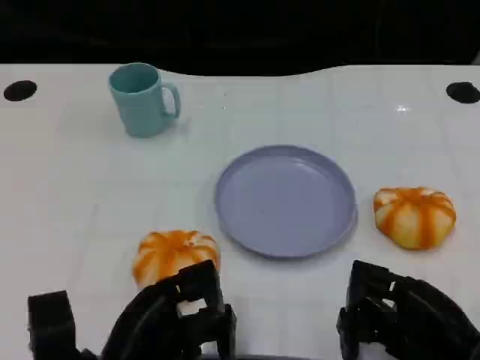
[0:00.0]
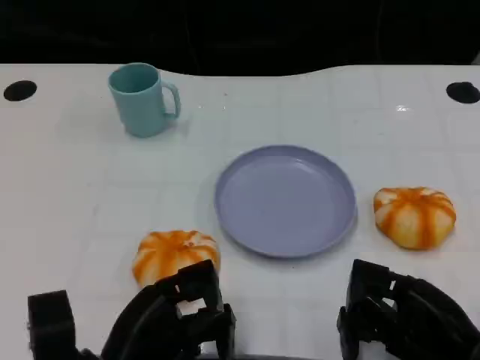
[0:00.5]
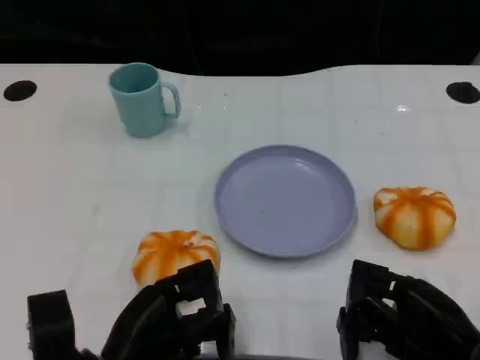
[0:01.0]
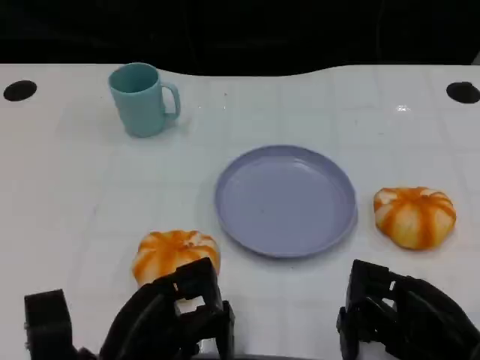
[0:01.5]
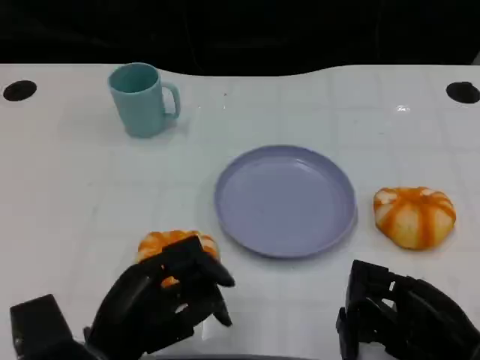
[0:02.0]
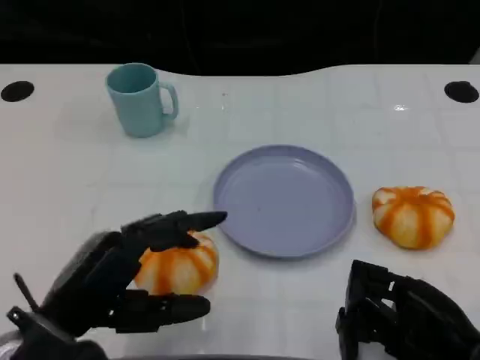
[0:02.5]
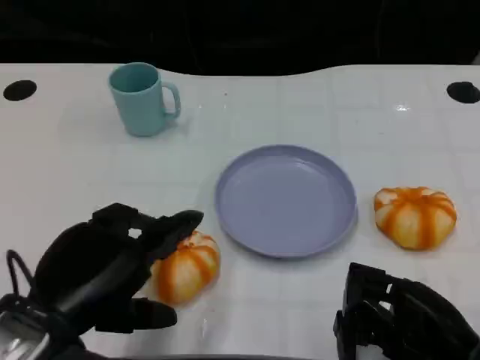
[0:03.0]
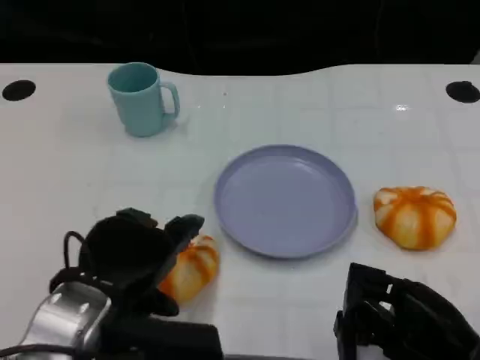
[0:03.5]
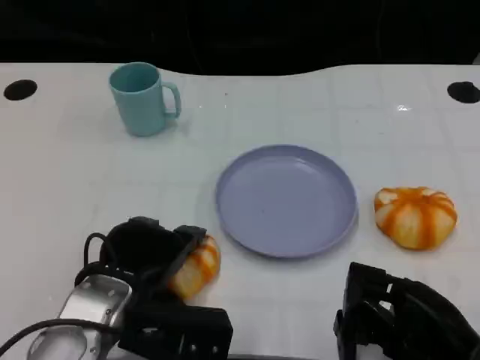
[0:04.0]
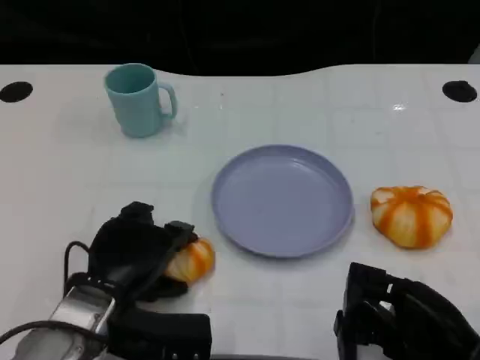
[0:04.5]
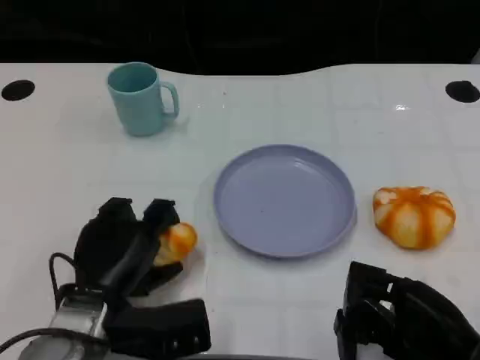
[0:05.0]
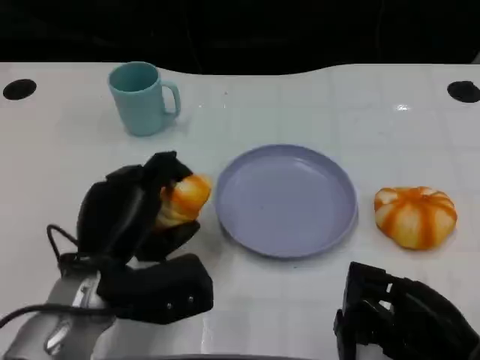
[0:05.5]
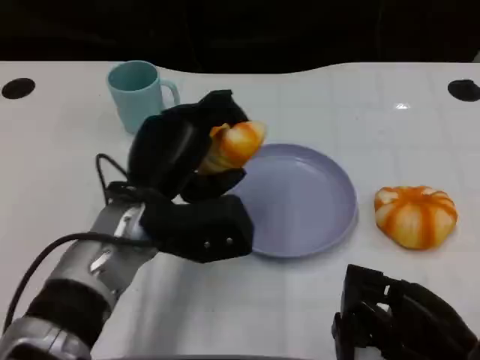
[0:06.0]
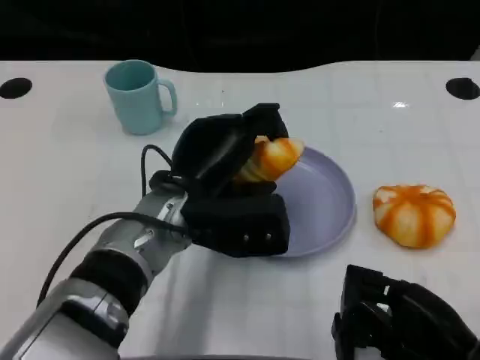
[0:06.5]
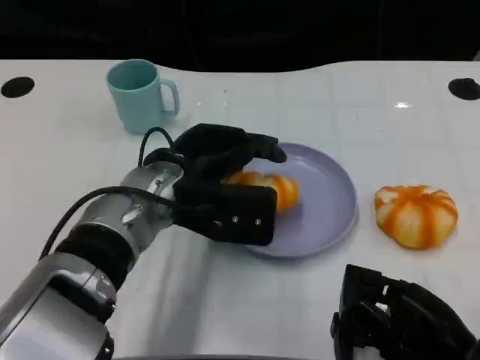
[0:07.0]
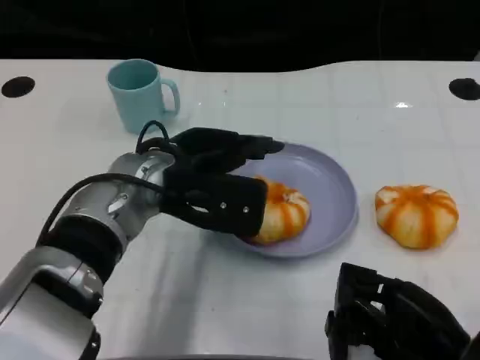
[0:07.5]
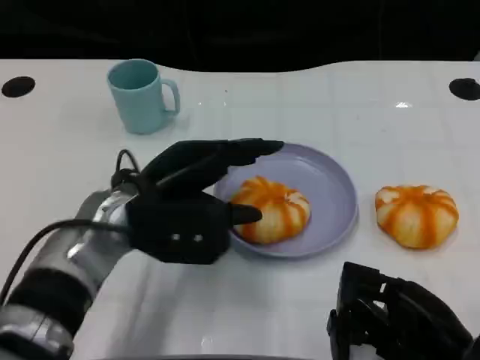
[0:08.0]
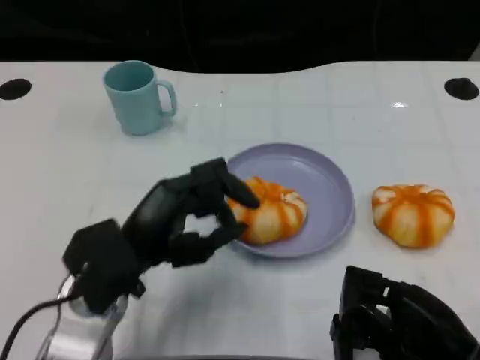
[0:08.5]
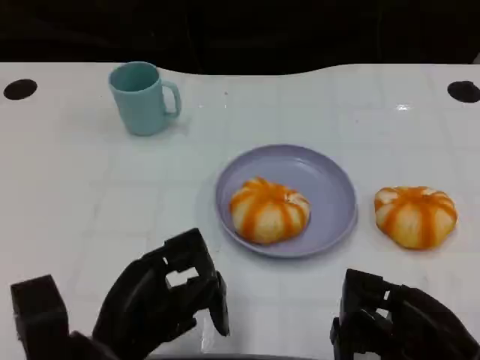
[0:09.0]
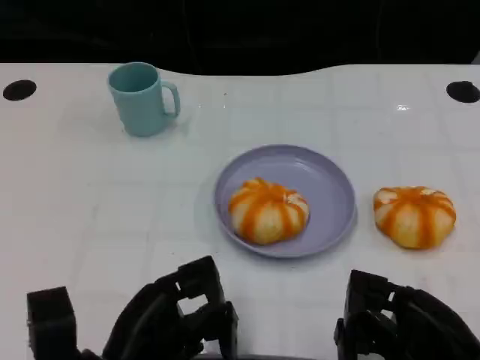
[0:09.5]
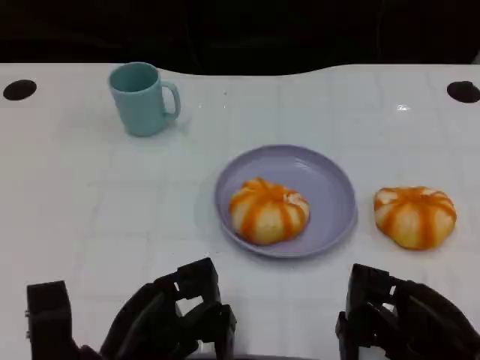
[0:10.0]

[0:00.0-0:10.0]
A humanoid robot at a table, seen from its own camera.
Task of the whole recording: Grasp the bread from the table and place it into the plate.
0:02.0 to 0:04.0: The left hand travels forward by approximately 5 cm.
0:04.0 to 0:06.0: The left hand shifts some 5 cm forward.
0:08.0 to 0:10.0: The left hand is displaced backward and downward by some 15 cm.

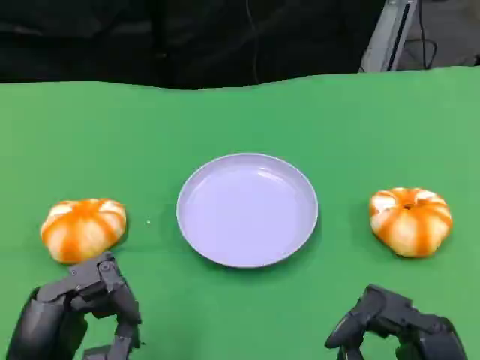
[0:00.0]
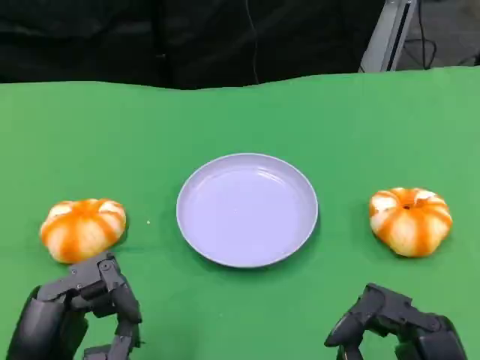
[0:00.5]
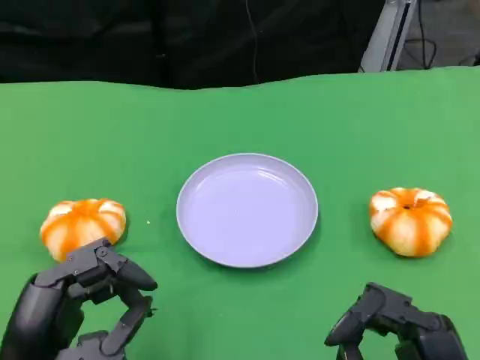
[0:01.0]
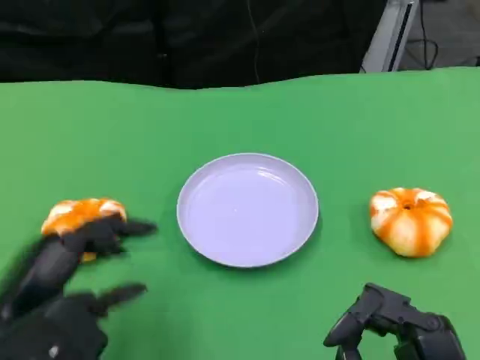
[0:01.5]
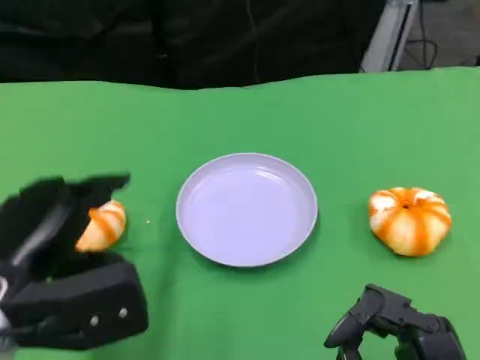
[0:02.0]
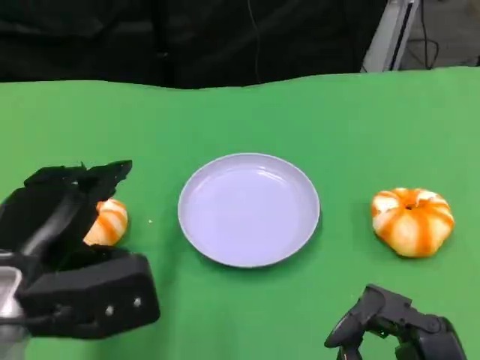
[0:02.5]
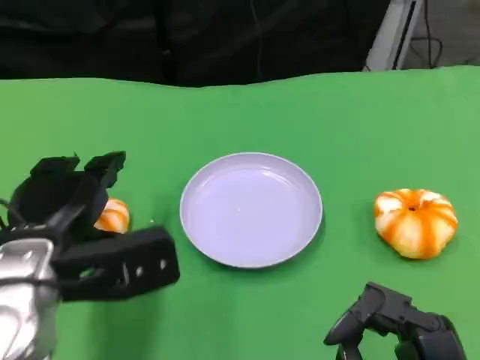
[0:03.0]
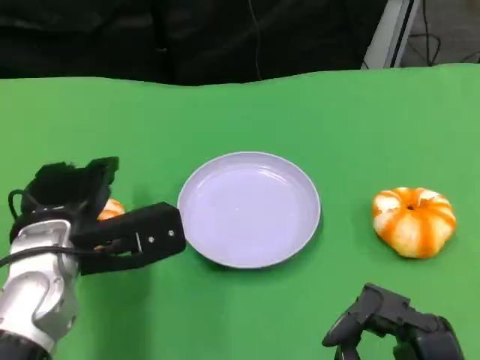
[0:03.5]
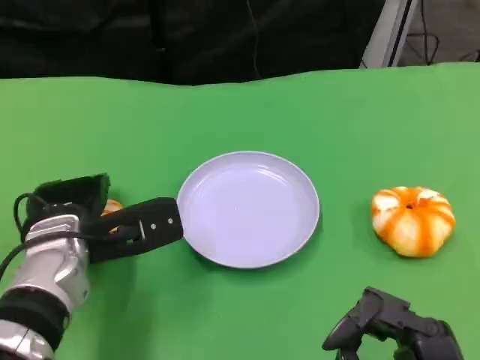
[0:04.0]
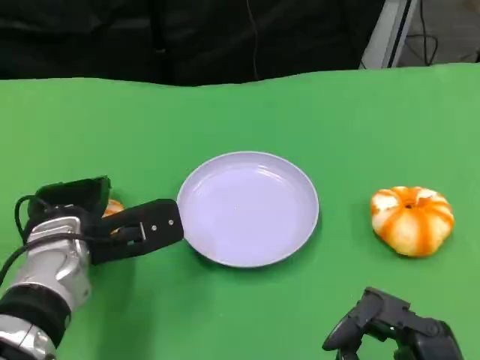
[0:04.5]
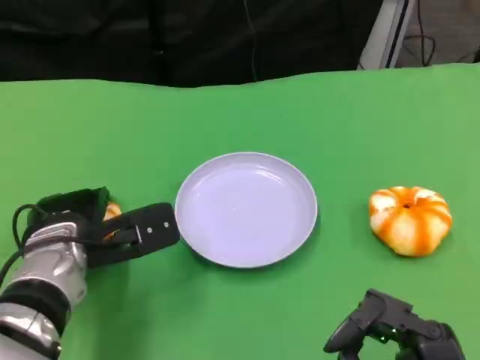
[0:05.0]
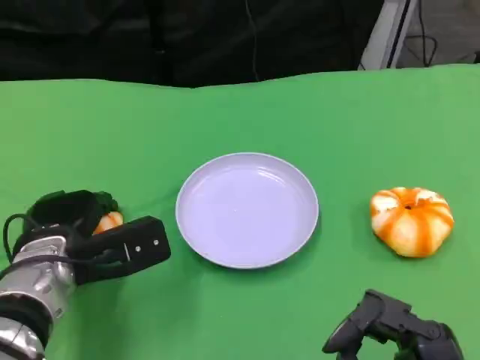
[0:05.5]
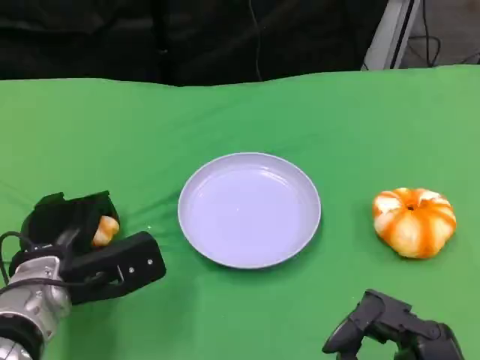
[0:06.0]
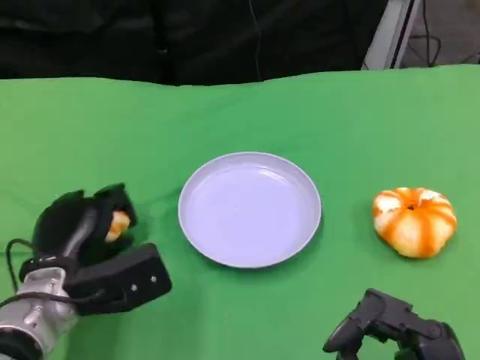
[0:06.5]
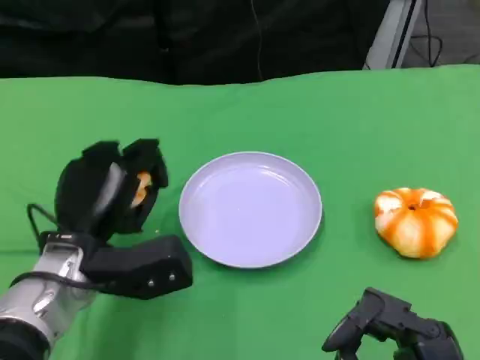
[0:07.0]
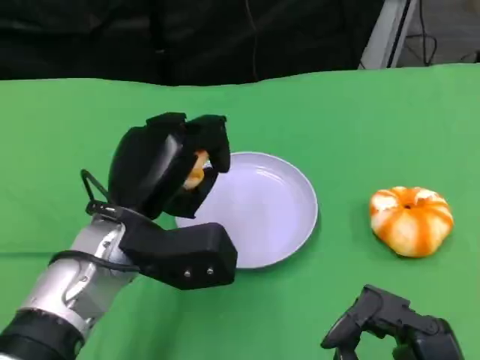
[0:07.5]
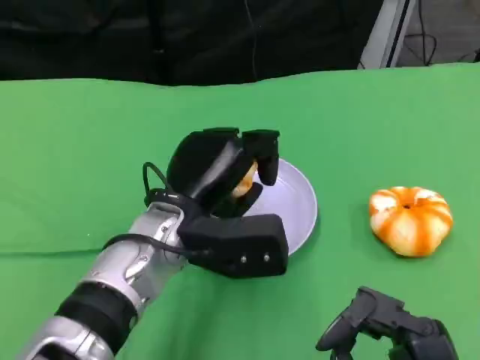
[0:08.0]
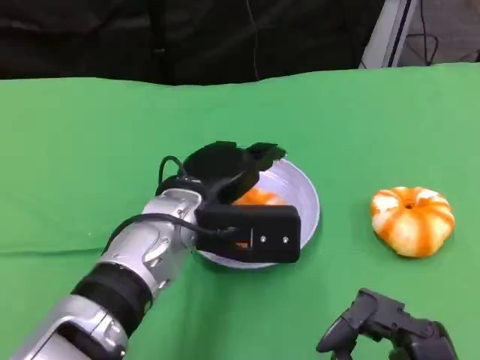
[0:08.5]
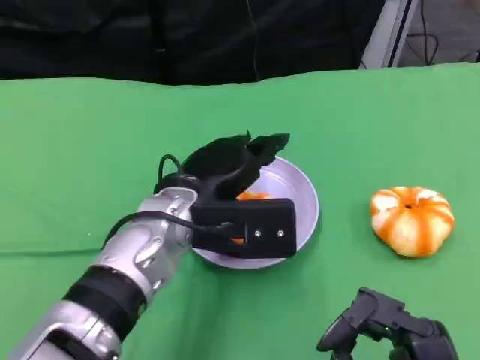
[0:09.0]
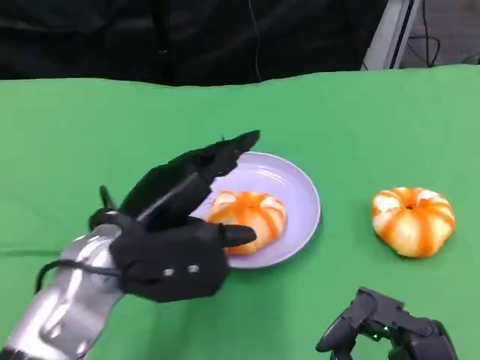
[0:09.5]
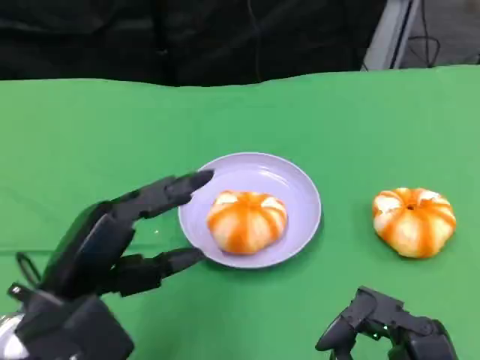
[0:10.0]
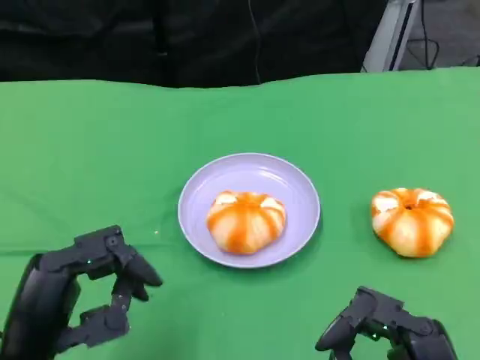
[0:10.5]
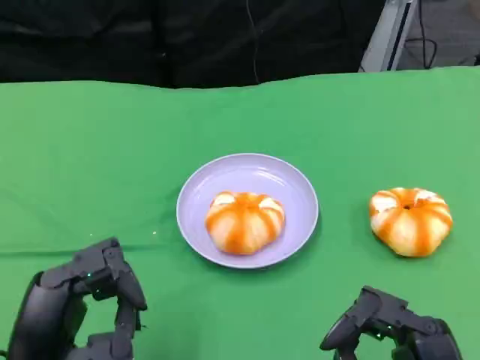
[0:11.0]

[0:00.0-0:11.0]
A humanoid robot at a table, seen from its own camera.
Task of the whole recording: Grasp the bread from the table and place it into the plate.
0:00.0 to 0:02.0: The left hand is displaced forward and upward by some 10 cm.
0:02.0 to 0:03.5: The left hand shifts about 5 cm forward.
0:03.5 to 0:05.5: The left hand moves downward, some 5 cm.
0:05.5 to 0:07.5: The left hand goes some 10 cm to the right and upward.
0:07.5 to 0:09.0: The left hand ends up some 5 cm from where it was.
0:09.0 to 0:11.0: The left hand heads backward and to the left, covering about 20 cm.

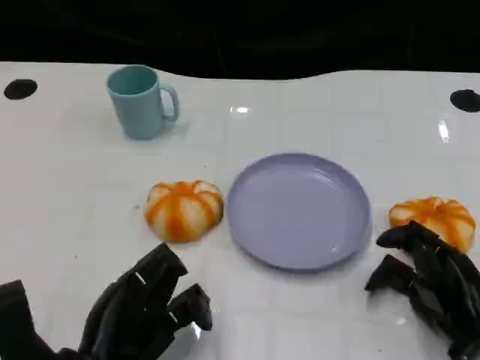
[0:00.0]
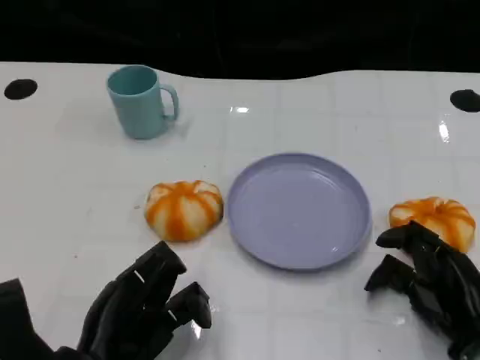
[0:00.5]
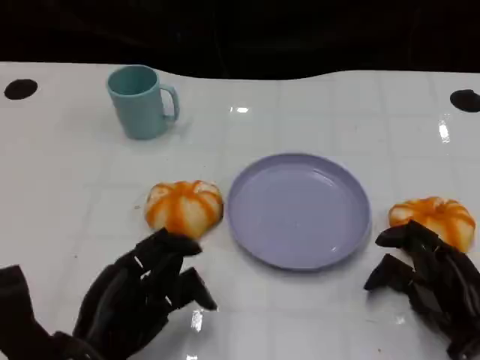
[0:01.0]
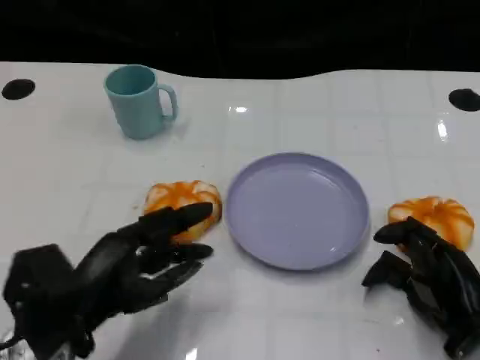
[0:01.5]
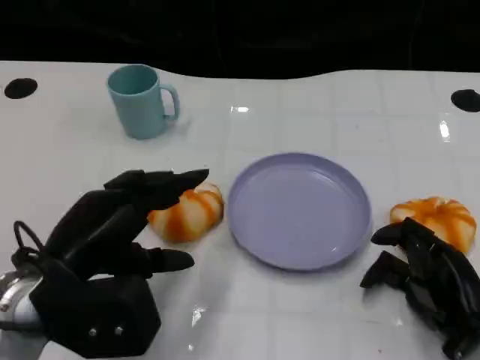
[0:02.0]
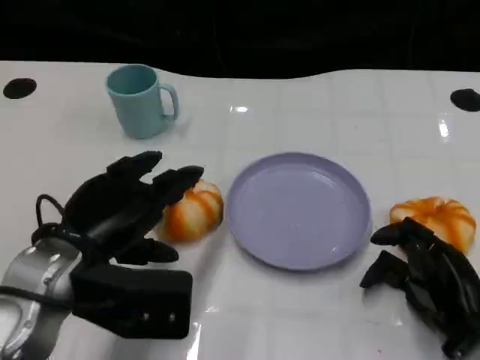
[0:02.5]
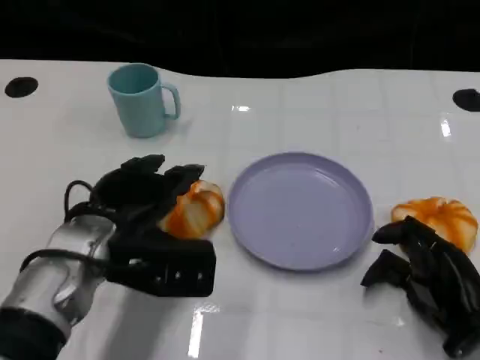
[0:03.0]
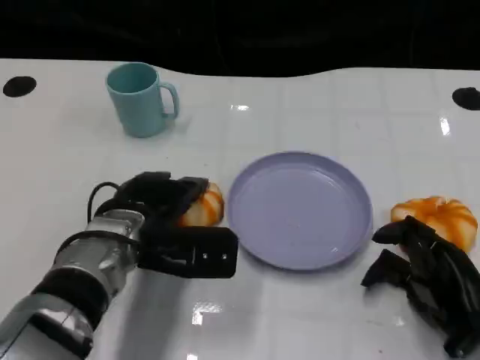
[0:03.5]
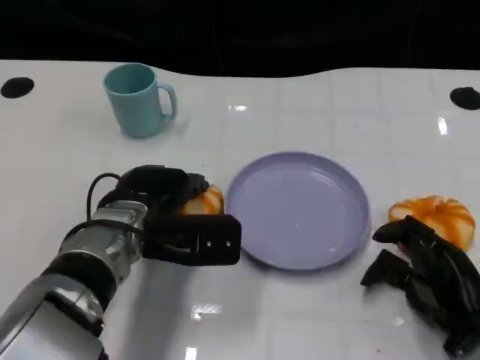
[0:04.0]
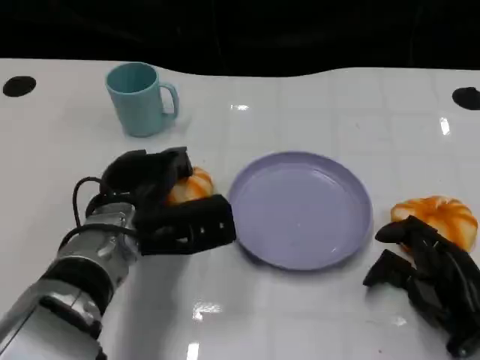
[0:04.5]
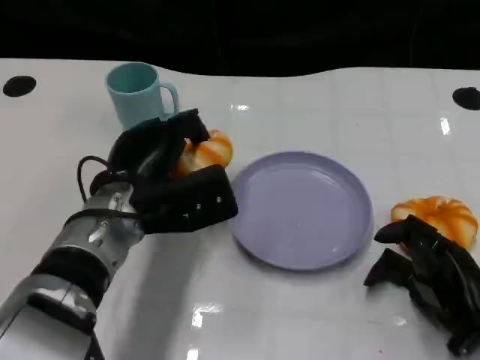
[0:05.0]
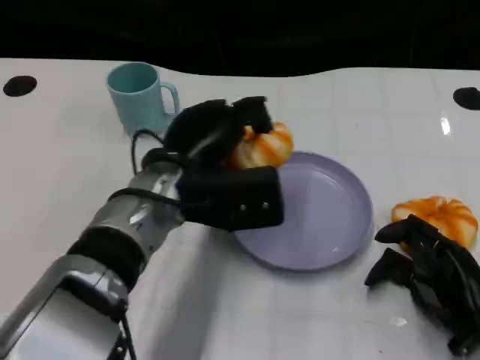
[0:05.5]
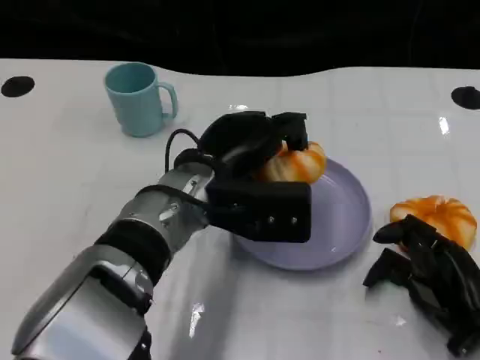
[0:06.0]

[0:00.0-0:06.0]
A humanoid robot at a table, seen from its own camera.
Task of the whole recording: Grasp the bread from the table and place it into the plate.
0:00.0 to 0:02.0: The left hand is displaced upward and forward by roughly 10 cm.
0:02.0 to 0:04.0: The left hand moves forward and to the right, approximately 10 cm.
0:04.0 to 0:06.0: The left hand is displaced to the right by roughly 5 cm.
